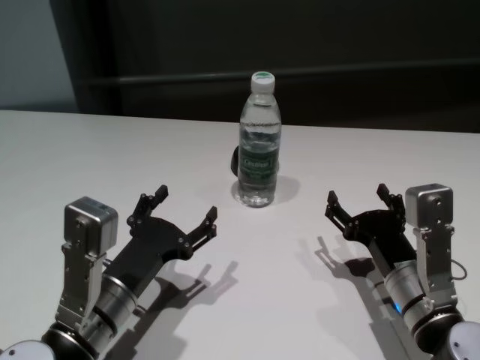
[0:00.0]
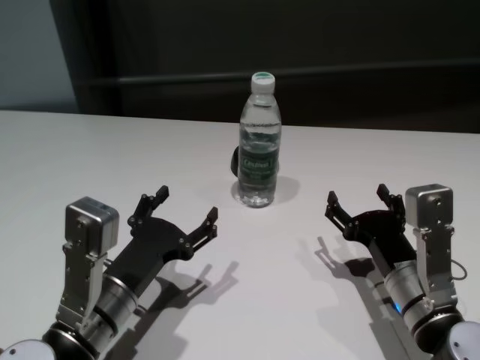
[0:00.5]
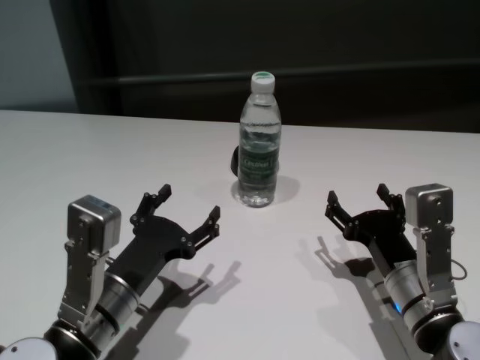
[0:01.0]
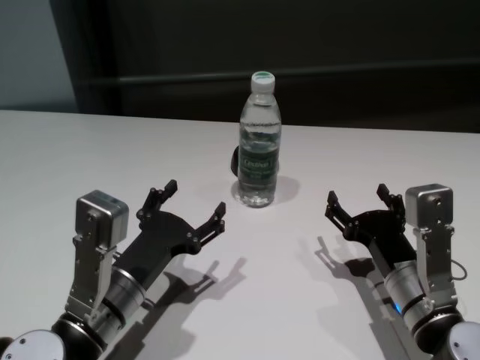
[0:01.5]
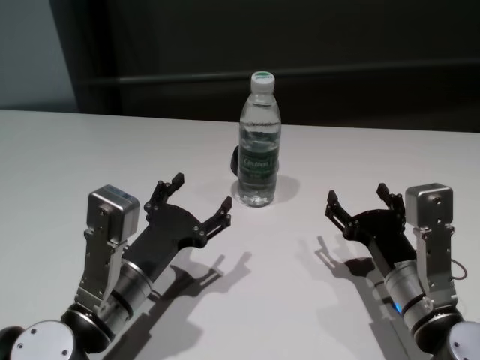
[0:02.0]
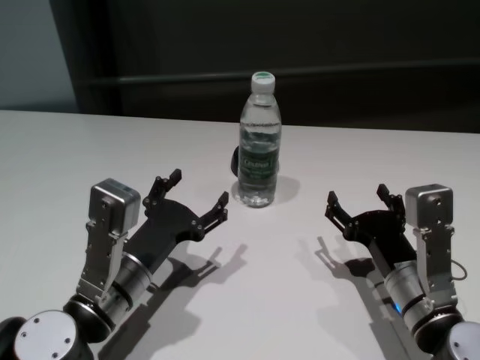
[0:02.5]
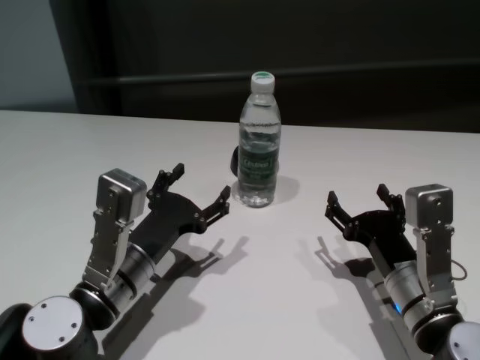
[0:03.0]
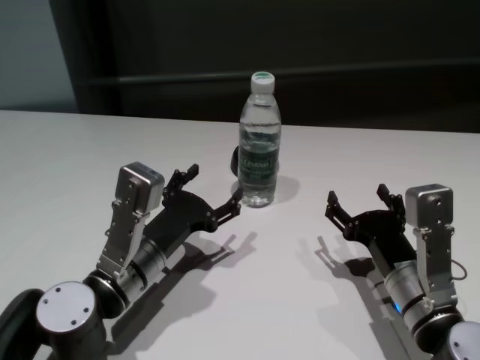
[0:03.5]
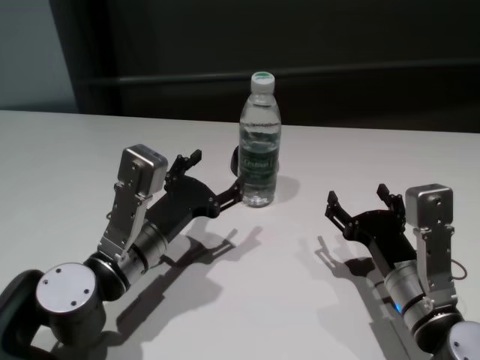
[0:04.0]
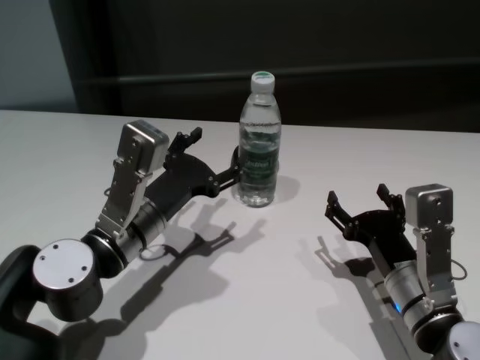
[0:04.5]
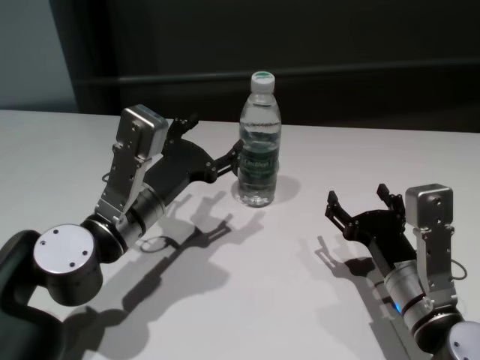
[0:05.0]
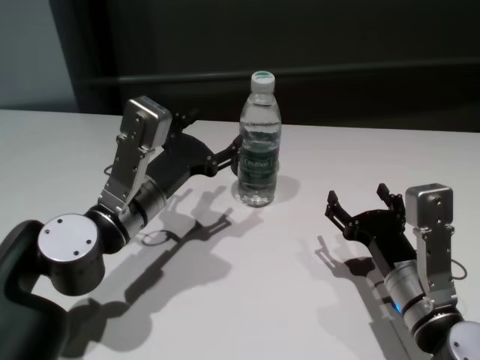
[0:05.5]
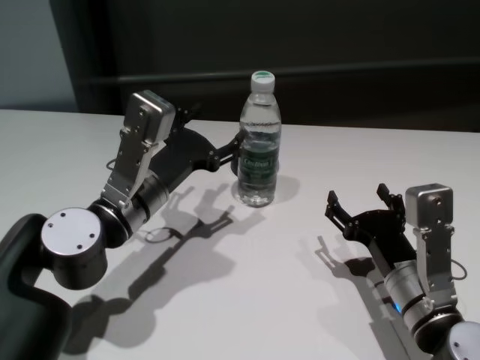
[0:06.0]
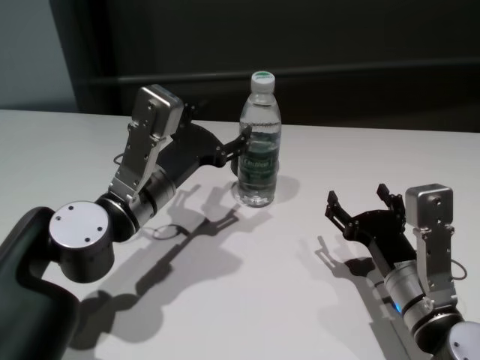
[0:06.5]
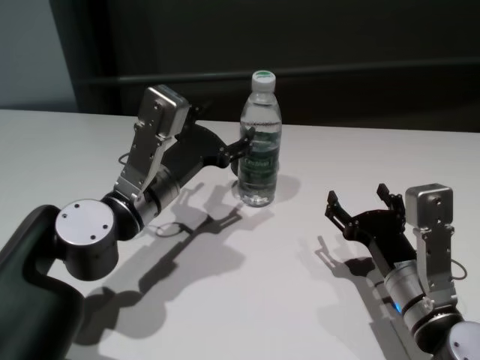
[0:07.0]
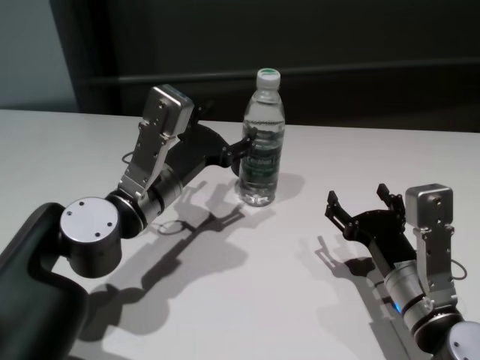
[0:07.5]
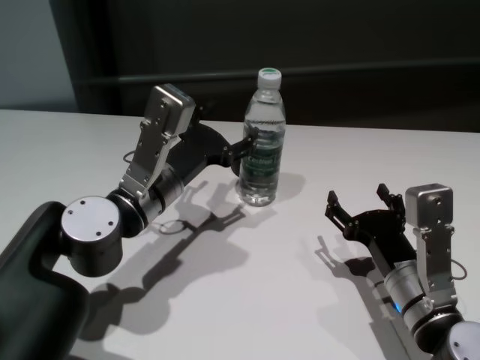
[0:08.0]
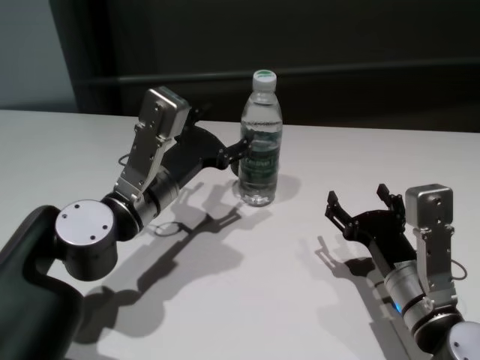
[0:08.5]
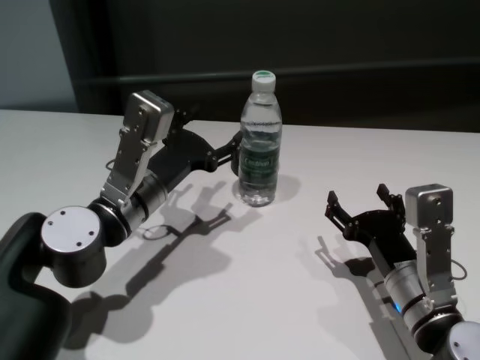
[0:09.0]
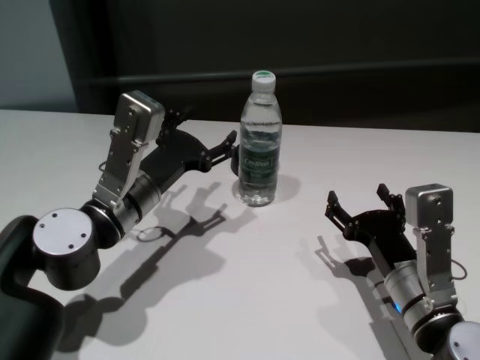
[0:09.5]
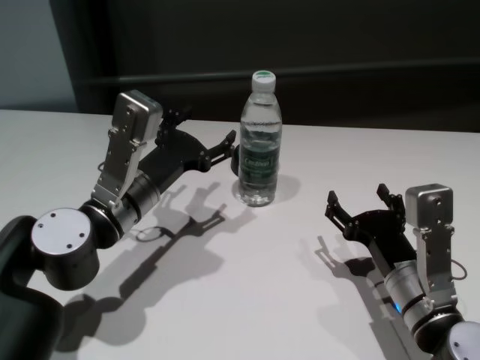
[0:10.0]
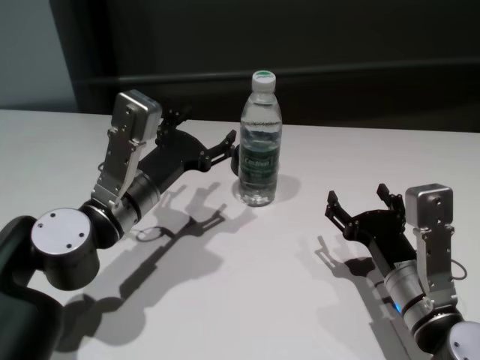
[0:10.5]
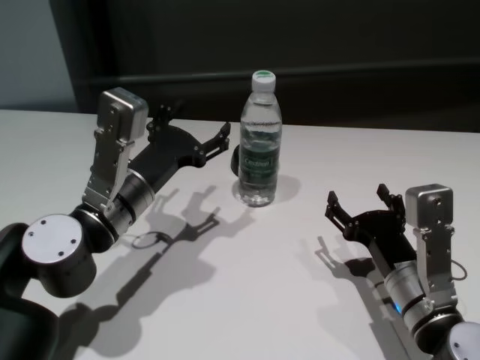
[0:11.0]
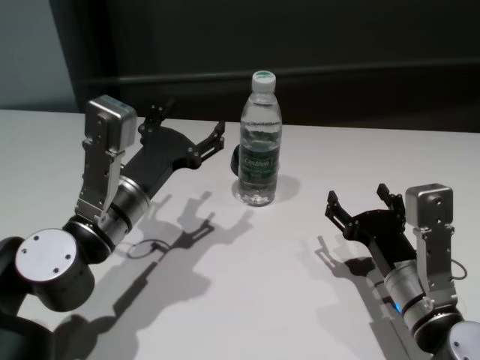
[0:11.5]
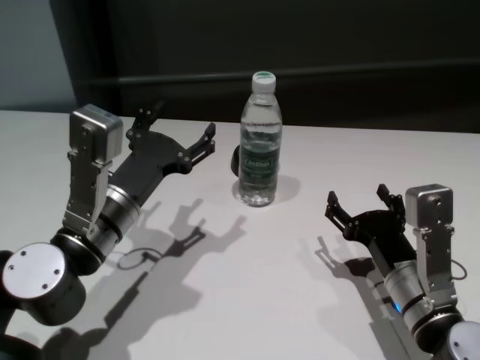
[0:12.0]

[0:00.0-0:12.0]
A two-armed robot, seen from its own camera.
Task of the whole recording: return to a safe position after touching an obstacle with your arm on the white table.
Step, 0:00.0 to 0:09.0: Touch the bottle with left gripper.

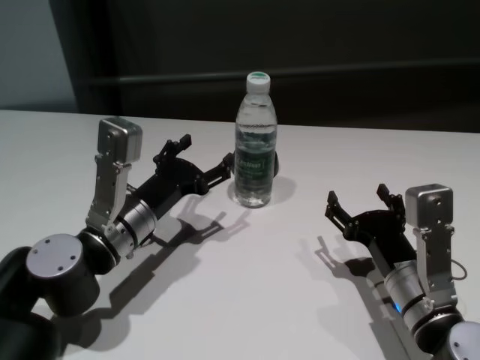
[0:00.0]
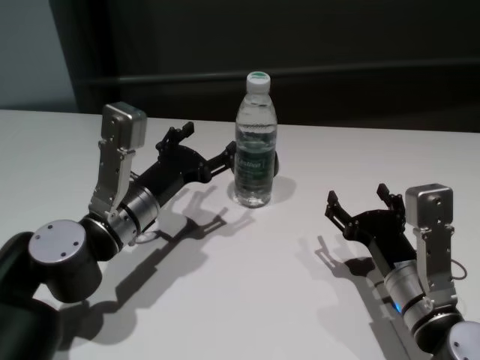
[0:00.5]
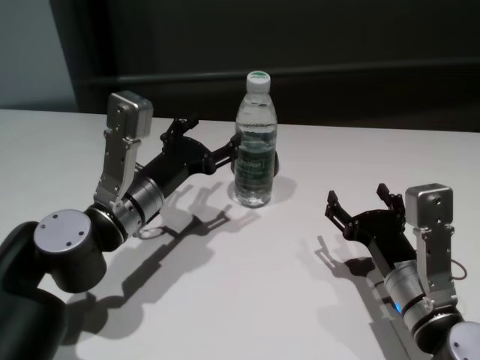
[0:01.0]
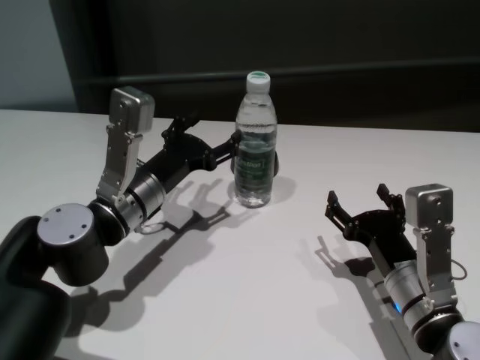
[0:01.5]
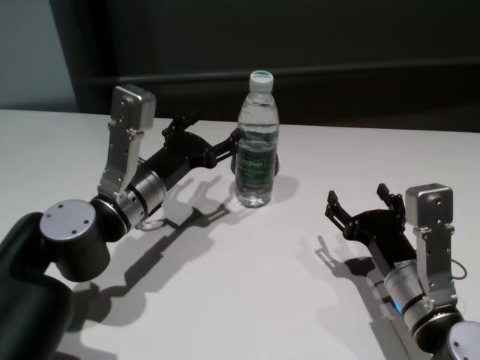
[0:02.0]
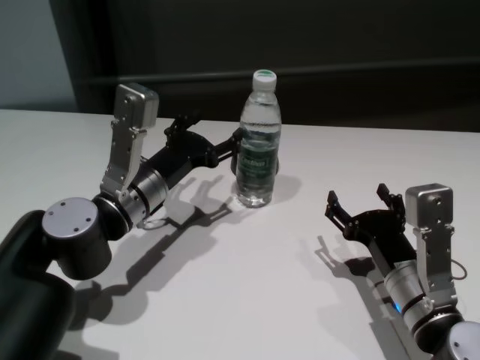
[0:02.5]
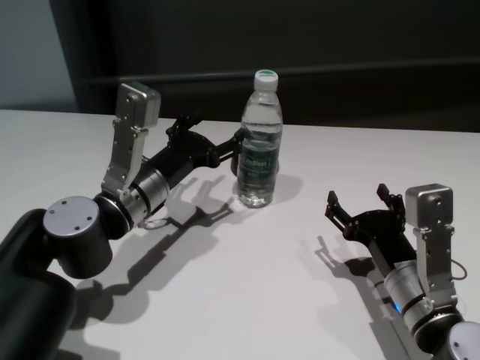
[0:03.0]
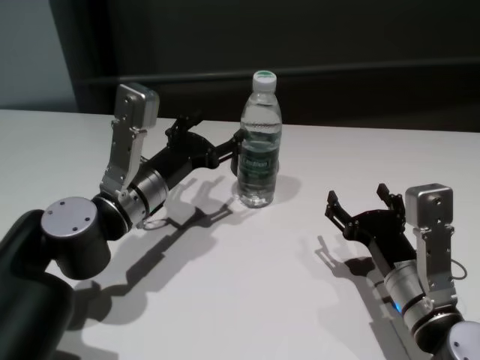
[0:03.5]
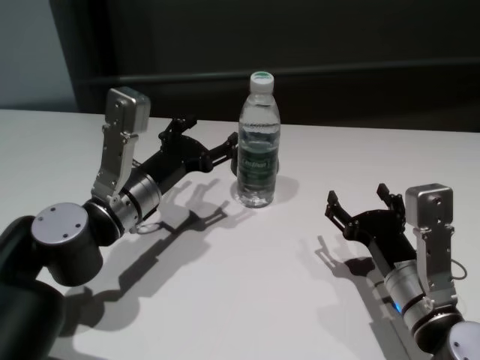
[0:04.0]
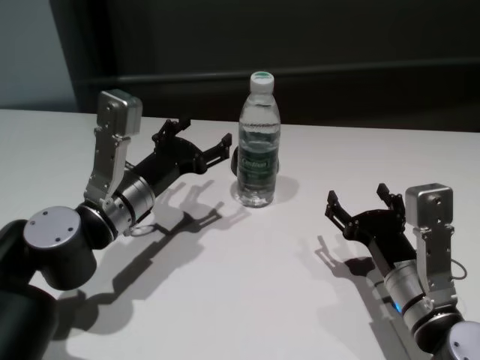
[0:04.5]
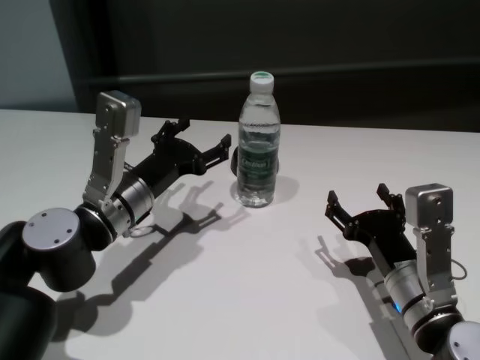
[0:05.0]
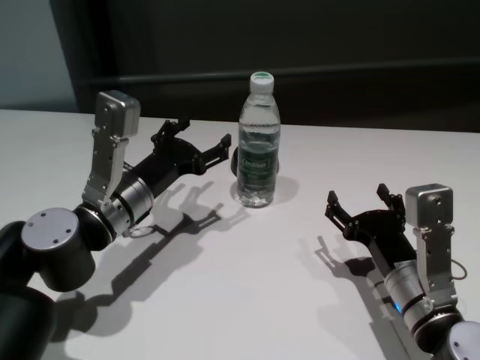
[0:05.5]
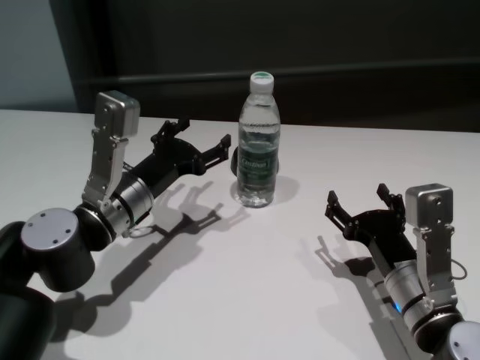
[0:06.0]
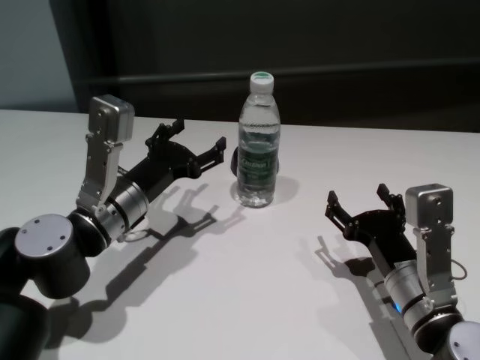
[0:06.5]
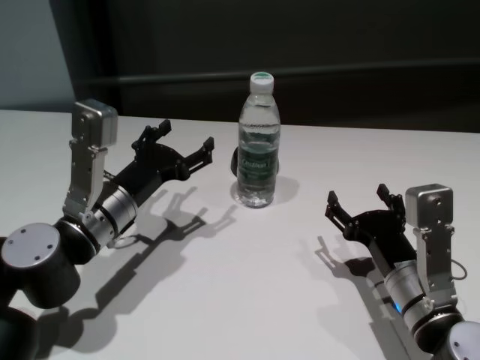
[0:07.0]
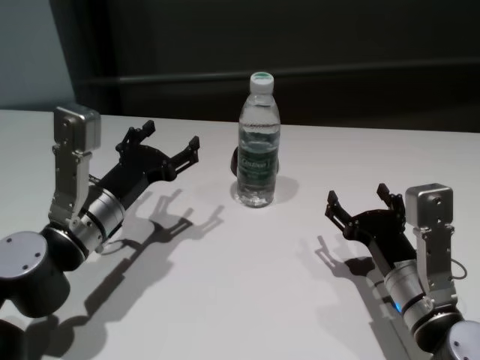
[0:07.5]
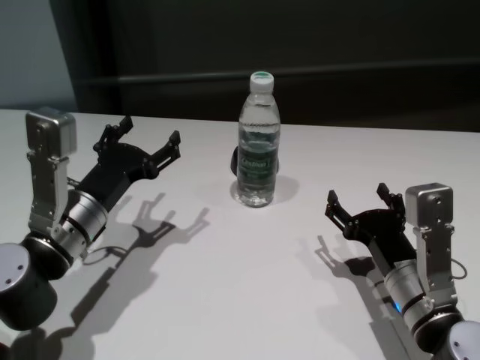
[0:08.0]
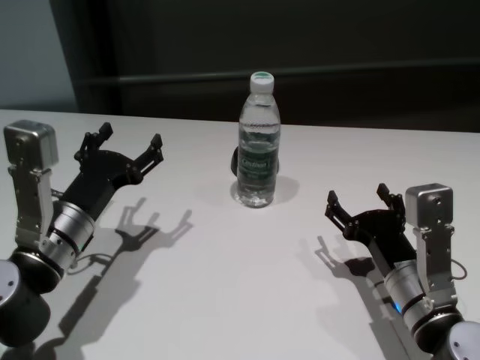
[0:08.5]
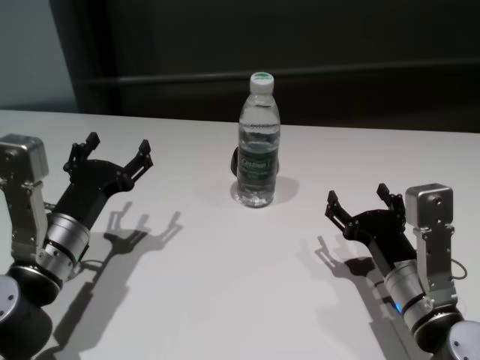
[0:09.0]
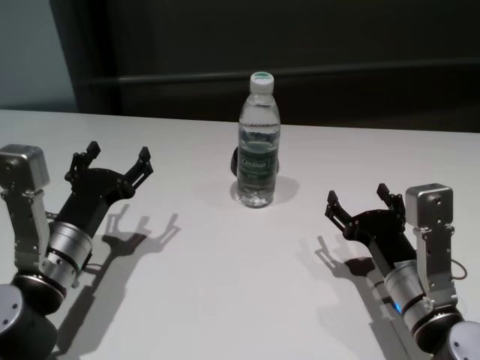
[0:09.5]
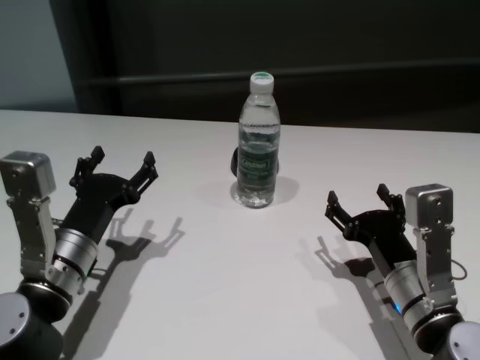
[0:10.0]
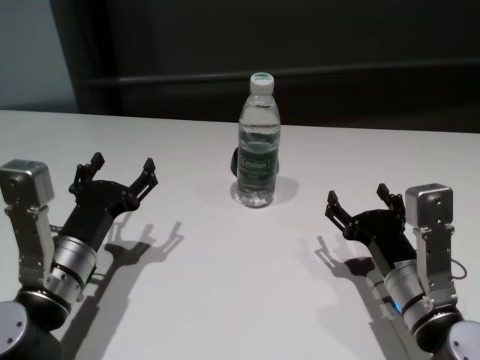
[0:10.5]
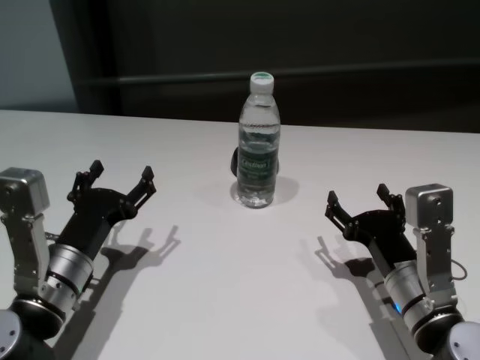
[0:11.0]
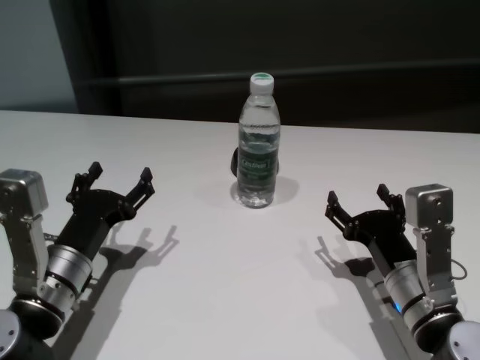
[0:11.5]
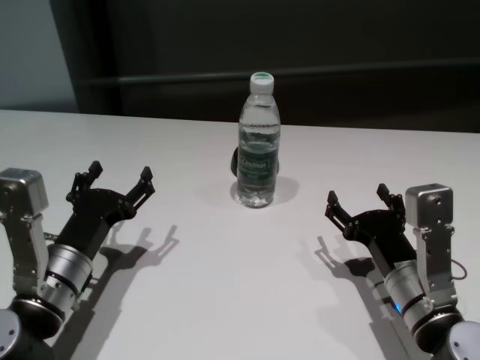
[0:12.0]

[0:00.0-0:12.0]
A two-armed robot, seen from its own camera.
Task of the whole recording: return to a safe position after touching an obstacle with your arm on the white table.
Step, 0:00.0 to 0:03.5: Touch the bottle with left gripper.
